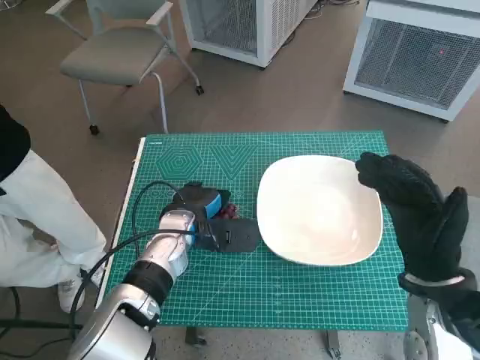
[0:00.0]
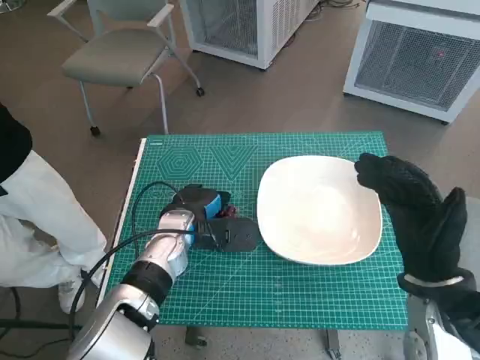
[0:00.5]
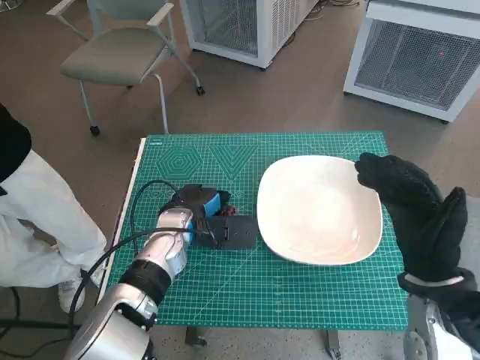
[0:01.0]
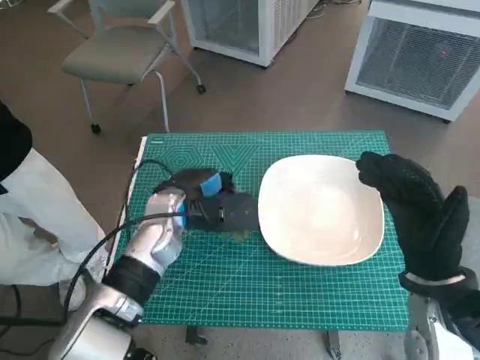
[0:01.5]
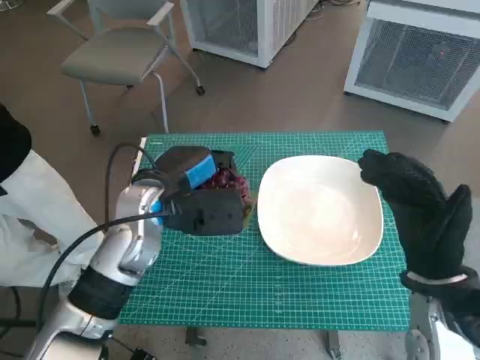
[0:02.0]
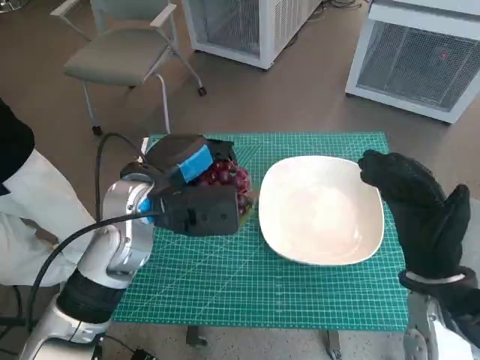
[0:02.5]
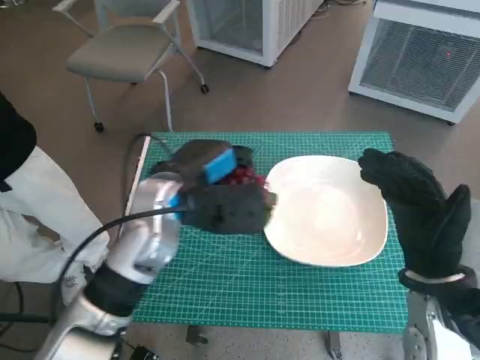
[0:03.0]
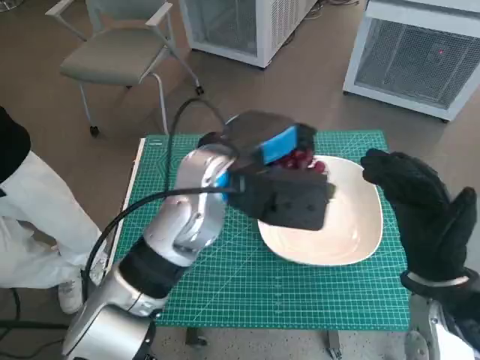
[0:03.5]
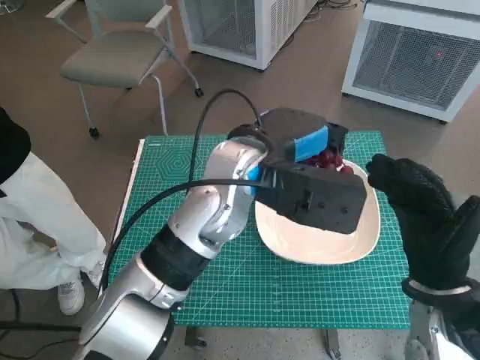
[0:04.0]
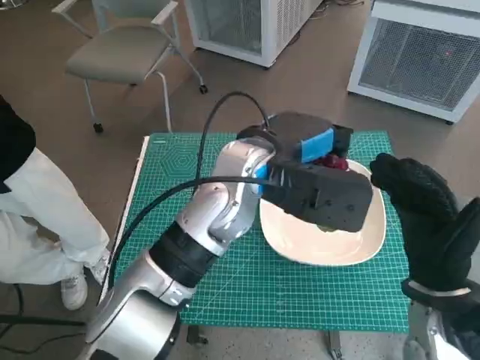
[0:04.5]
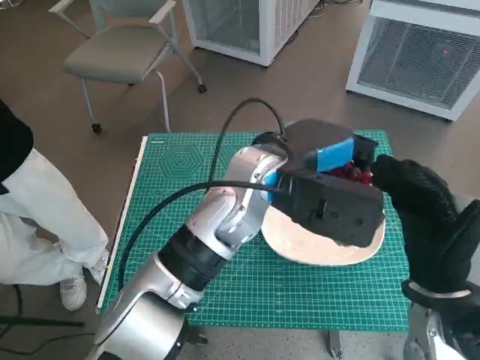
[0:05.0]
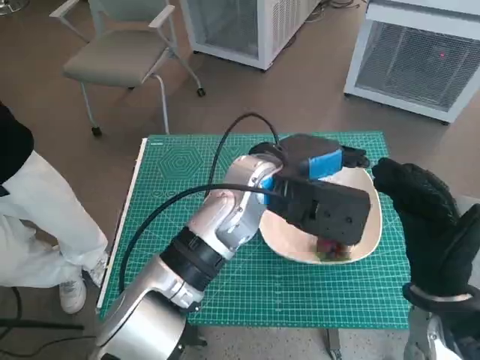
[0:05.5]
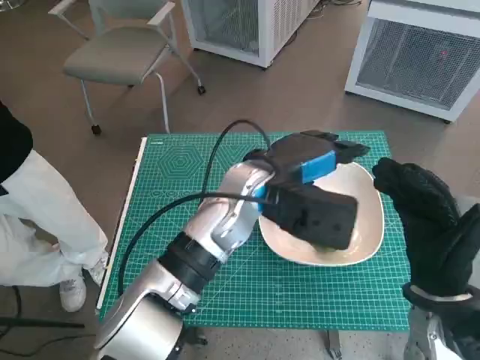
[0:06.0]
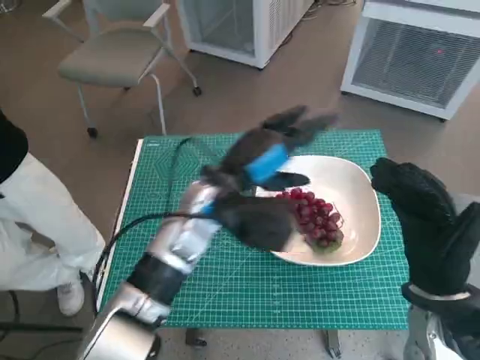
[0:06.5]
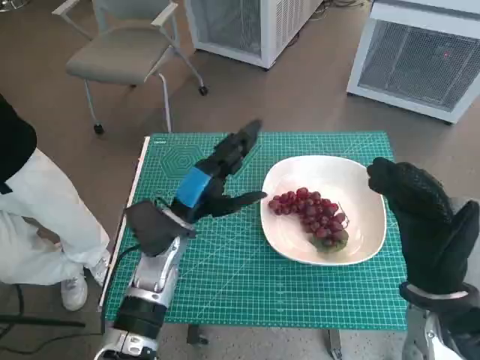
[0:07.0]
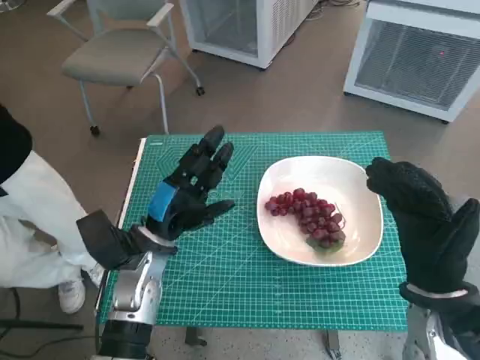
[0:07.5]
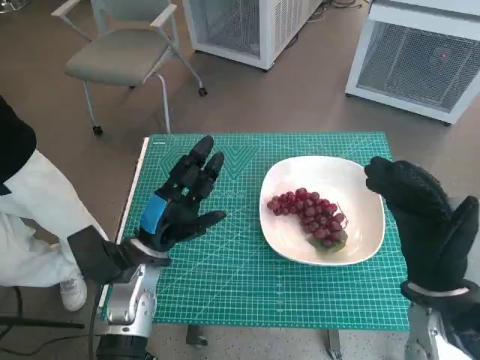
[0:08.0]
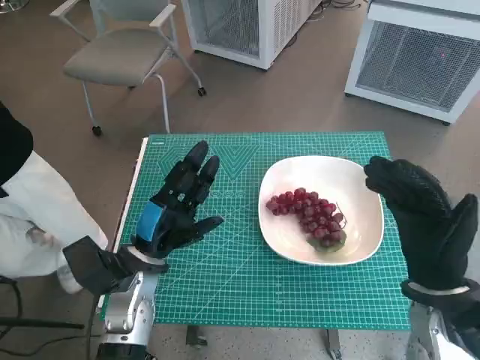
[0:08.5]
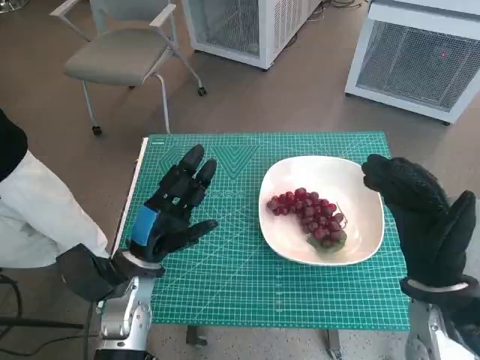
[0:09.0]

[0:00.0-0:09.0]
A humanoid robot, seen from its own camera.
Task of the whole recording: Pick up the grapes and put them on the plate.
Step, 0:00.5 to 0:05.5: Place the grapes in the plate with left hand.
0:00.0 to 0:02.0: The left hand is displaced upward by about 10 cm.
0:02.0 to 0:04.5: The left hand shifts some 15 cm to the right and upward.
0:04.5 to 0:07.0: The left hand travels downward and to the left by some 15 cm.
0:07.0 to 0:09.0: The left hand travels to the left and backward by approximately 10 cm.
